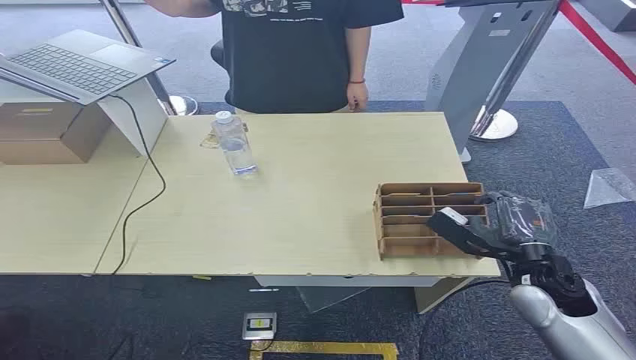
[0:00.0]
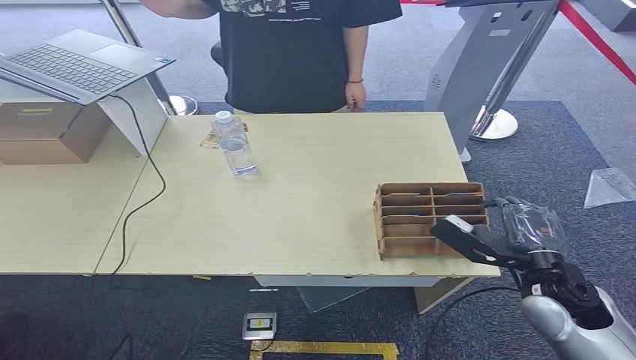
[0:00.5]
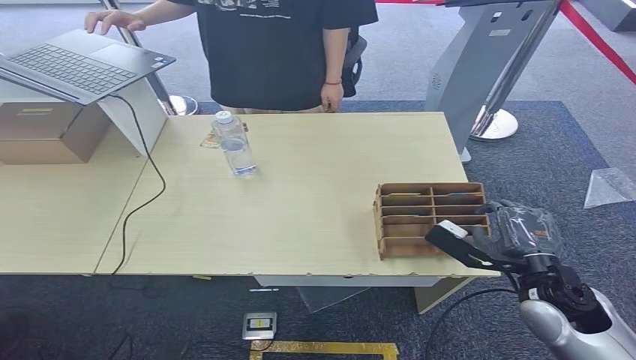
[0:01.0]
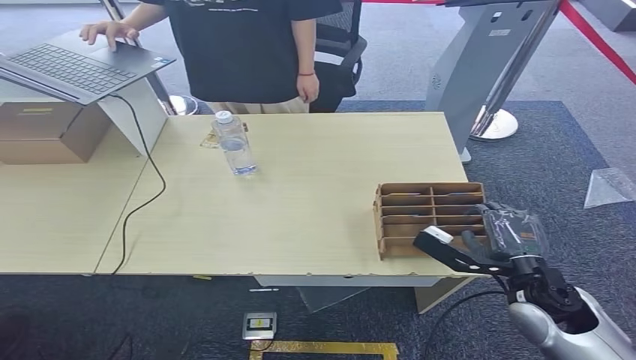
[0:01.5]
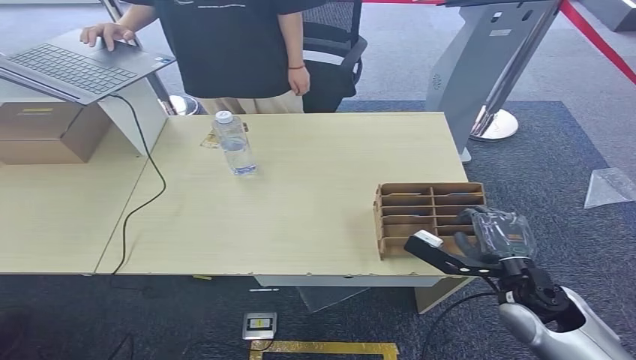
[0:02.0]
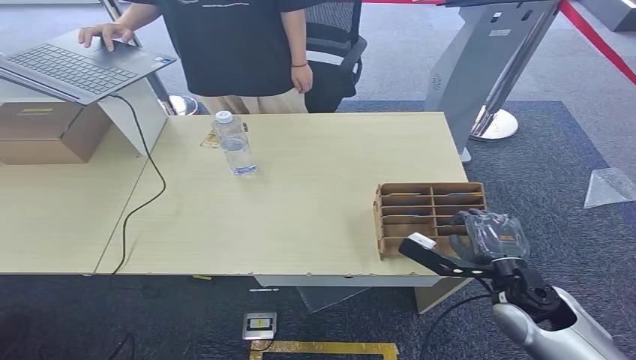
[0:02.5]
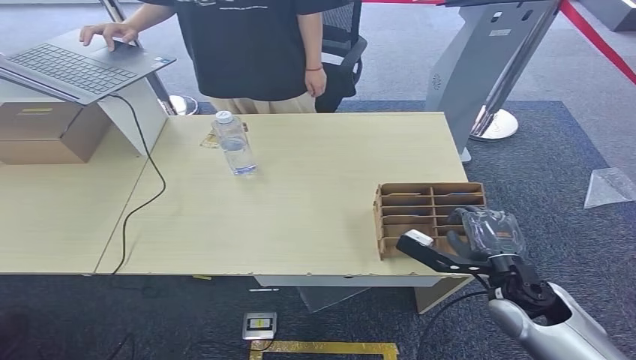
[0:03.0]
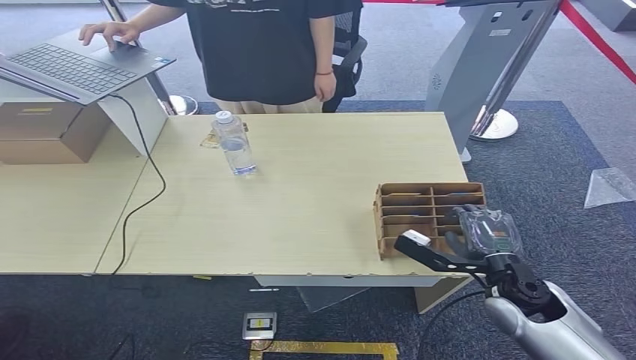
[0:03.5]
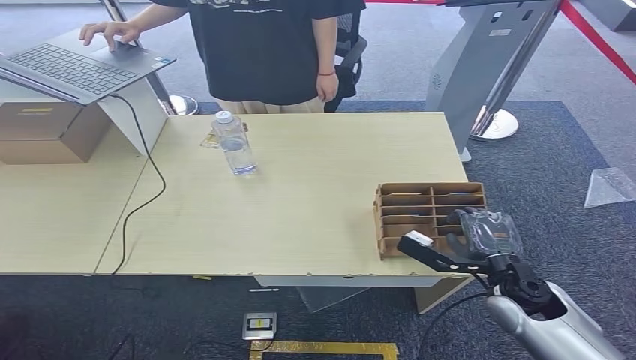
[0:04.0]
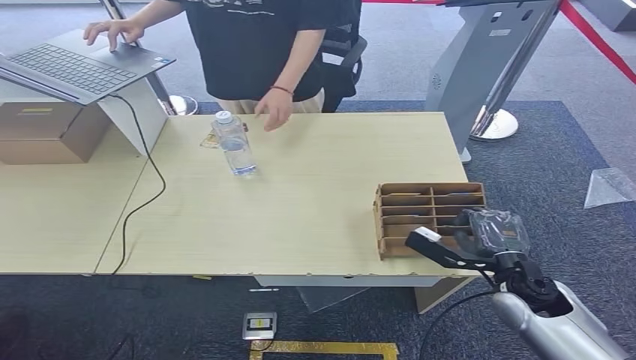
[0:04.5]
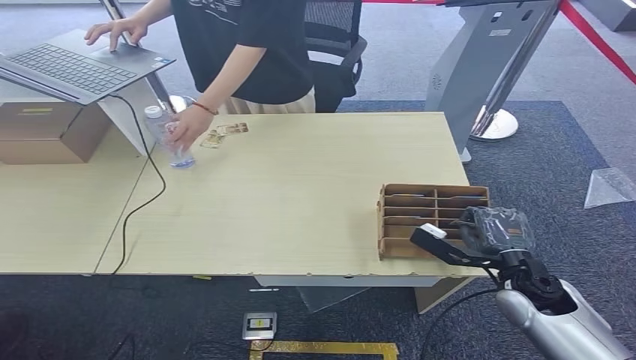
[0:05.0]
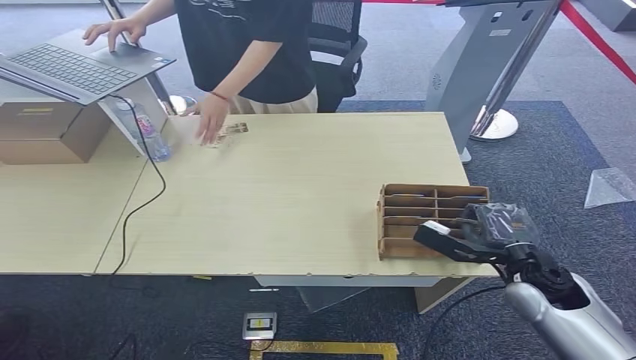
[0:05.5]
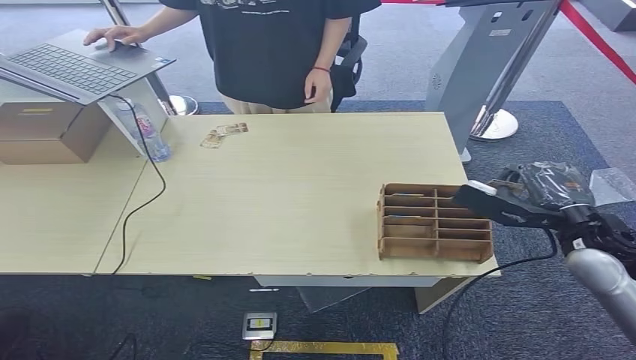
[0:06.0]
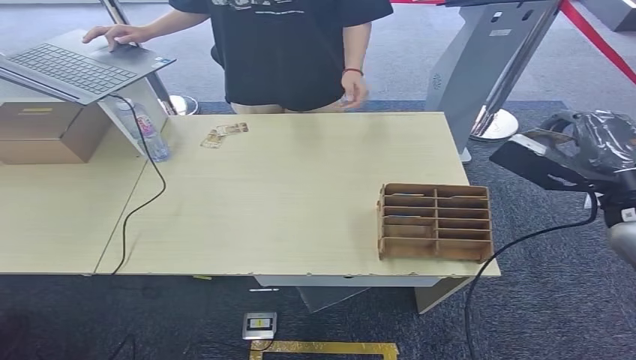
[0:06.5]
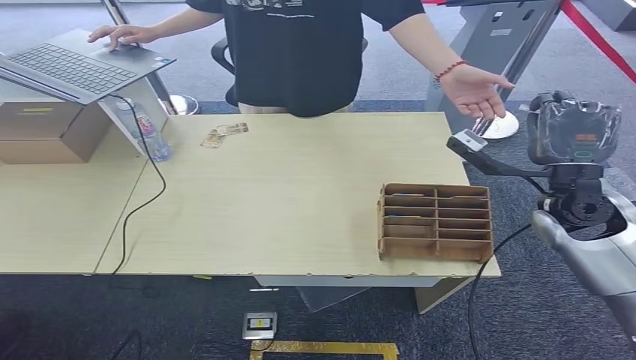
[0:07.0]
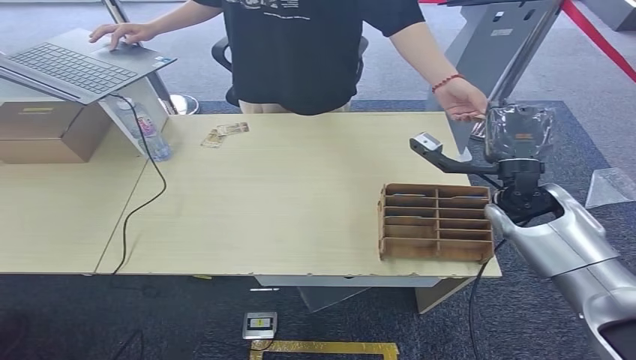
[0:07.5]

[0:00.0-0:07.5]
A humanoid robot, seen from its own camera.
Step, 0:00.0 to 0:05.5: Pick up the key card from the card box.
Step, 0:06.0 to 0:07.5: Hand the key card to the target.
0:02.0 to 0:05.5: The hands move only a little.
0:05.5 to 0:07.5: The right hand moves forward and upward, roughly 15 cm.

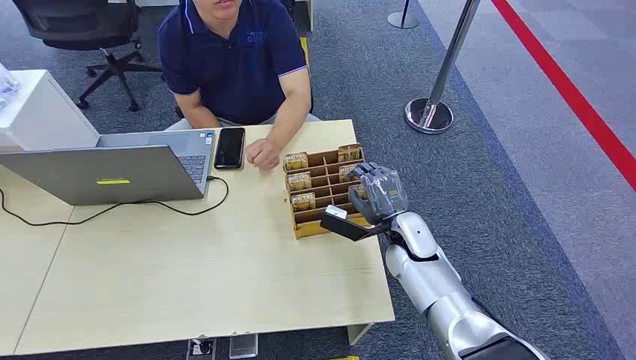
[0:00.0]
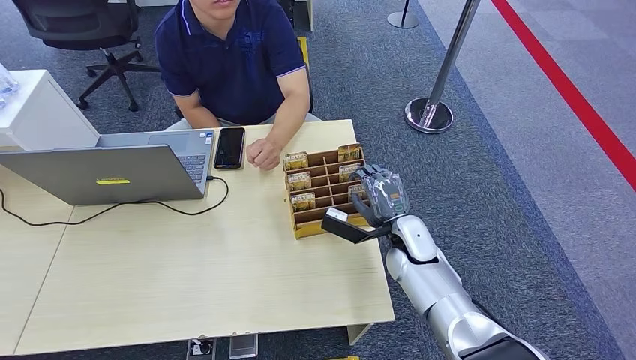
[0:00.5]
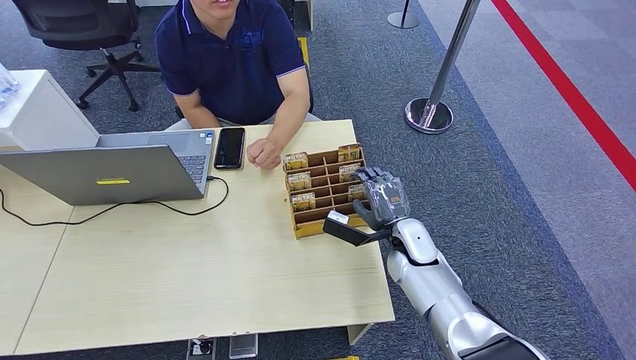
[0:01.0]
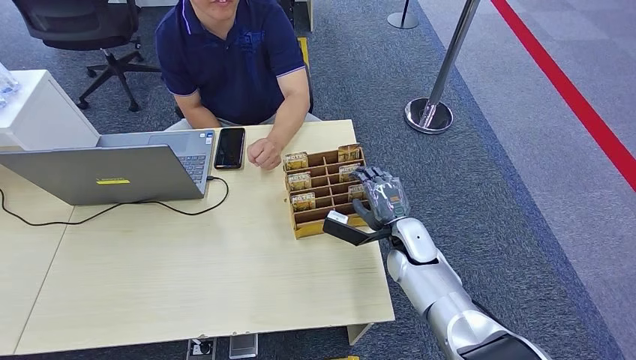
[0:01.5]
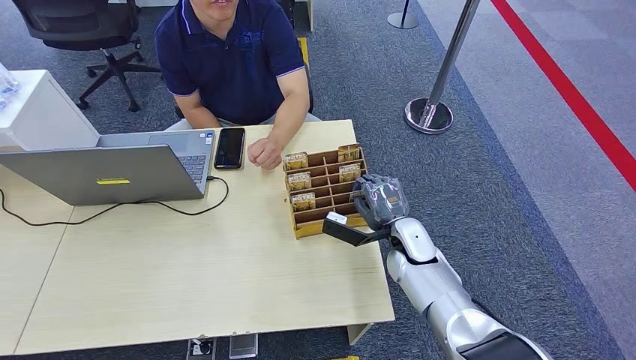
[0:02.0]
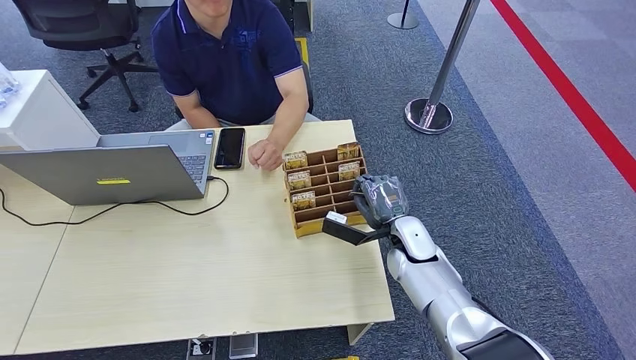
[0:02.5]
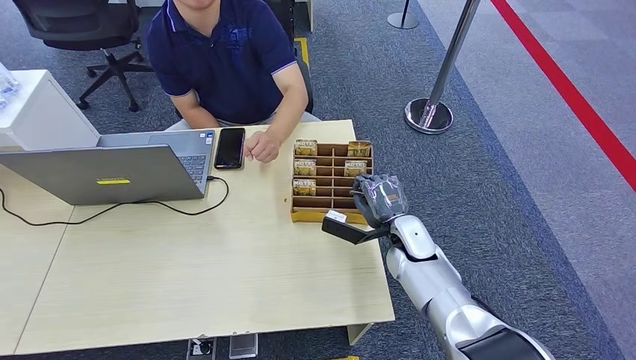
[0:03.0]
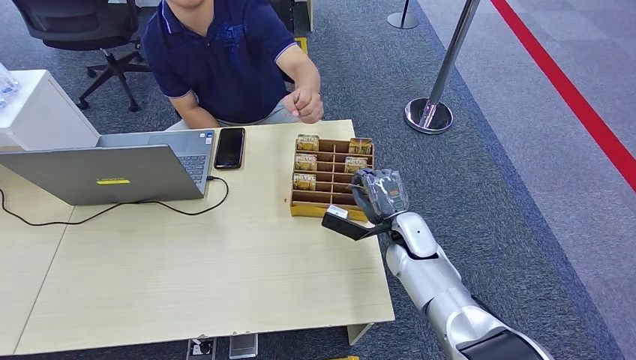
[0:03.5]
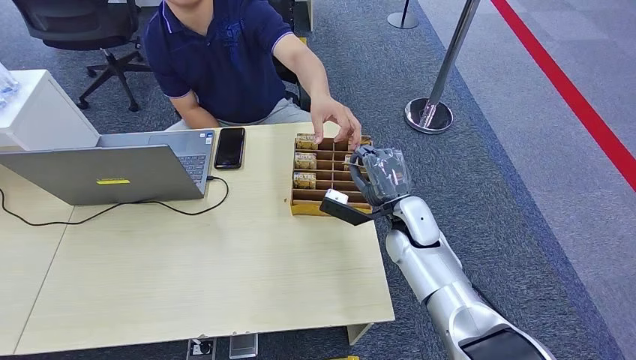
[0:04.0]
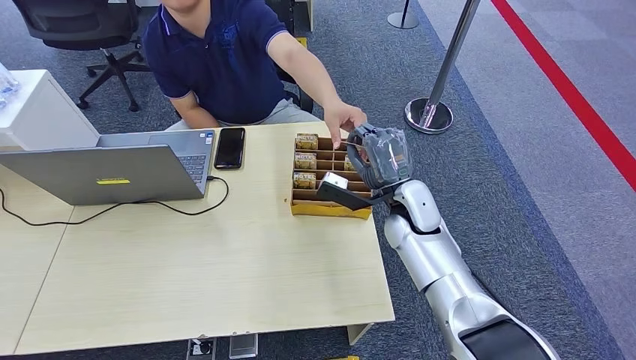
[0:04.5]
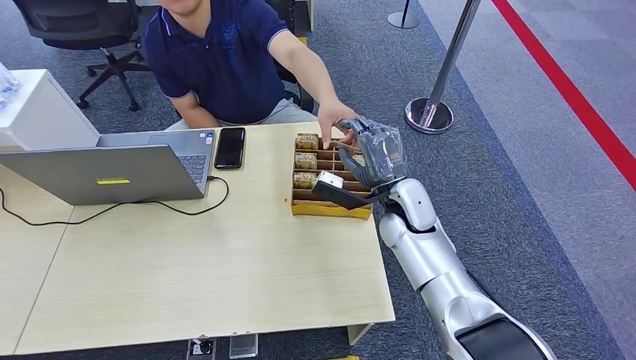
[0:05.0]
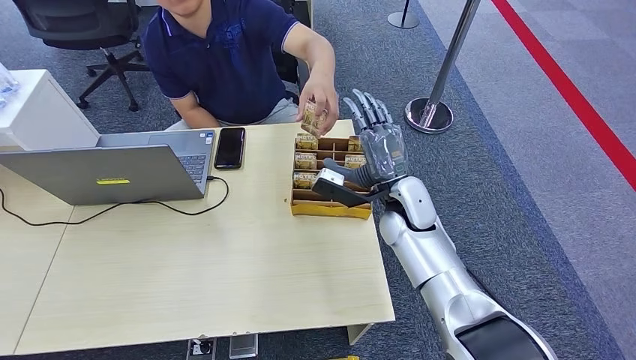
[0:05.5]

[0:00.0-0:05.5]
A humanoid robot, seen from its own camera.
Step, 0:00.0 to 0:03.5: Pick up the key card from the card box.
Step, 0:04.0 to 0:05.5: Hand the key card to the target.
0:02.0 to 0:03.5: The hands make only small movements.
0:03.5 to 0:05.5: The right hand is displaced upward by roughly 10 cm.
